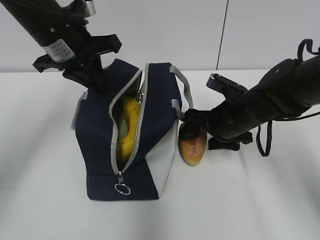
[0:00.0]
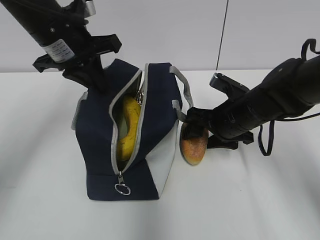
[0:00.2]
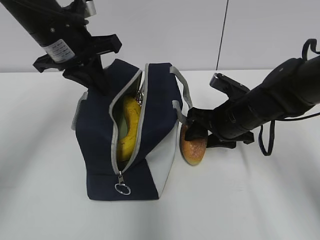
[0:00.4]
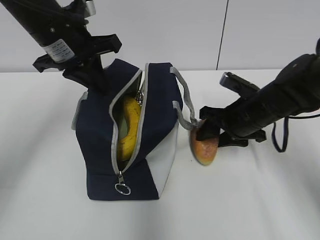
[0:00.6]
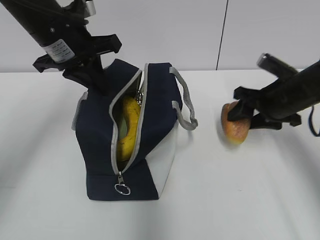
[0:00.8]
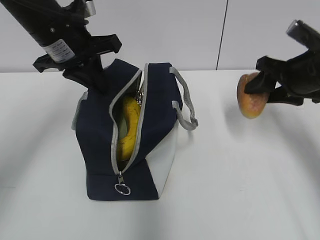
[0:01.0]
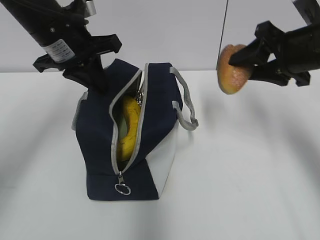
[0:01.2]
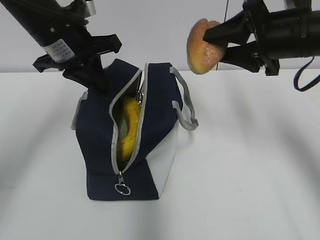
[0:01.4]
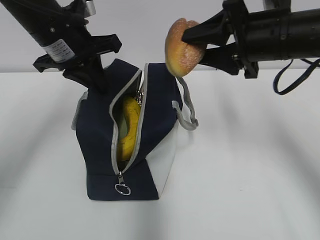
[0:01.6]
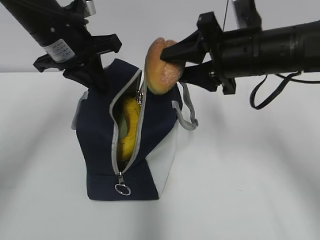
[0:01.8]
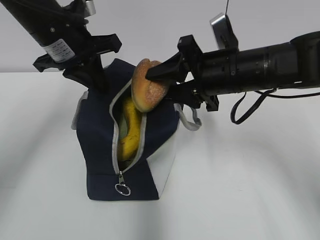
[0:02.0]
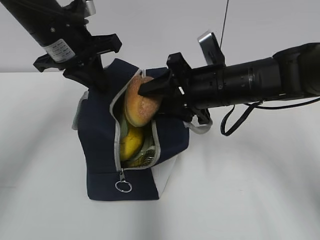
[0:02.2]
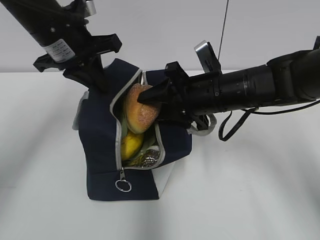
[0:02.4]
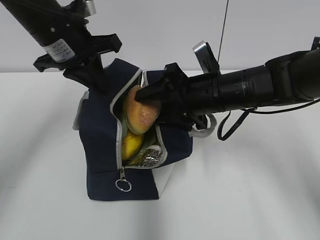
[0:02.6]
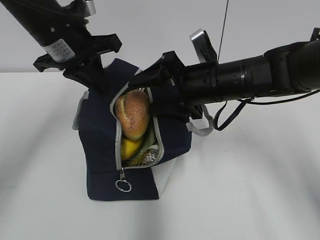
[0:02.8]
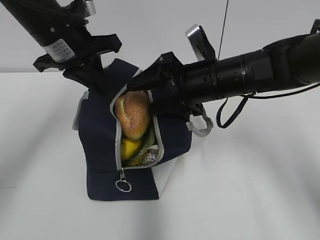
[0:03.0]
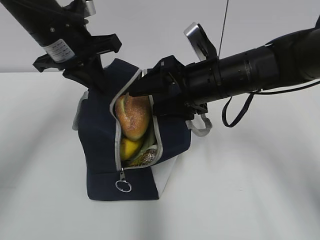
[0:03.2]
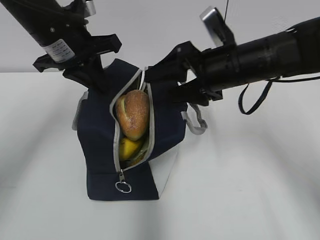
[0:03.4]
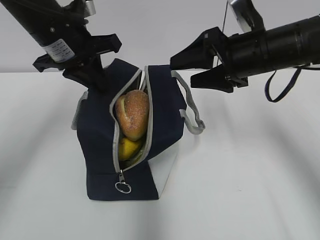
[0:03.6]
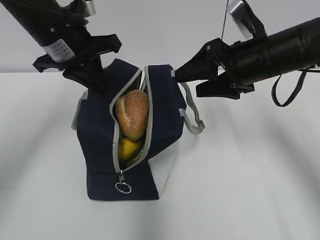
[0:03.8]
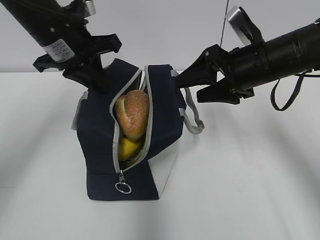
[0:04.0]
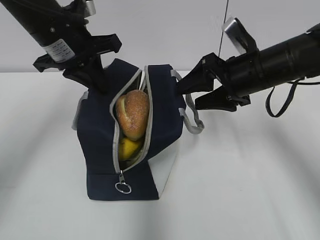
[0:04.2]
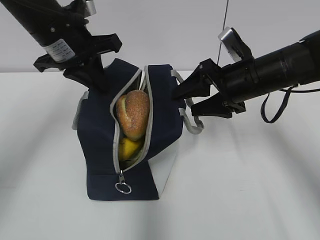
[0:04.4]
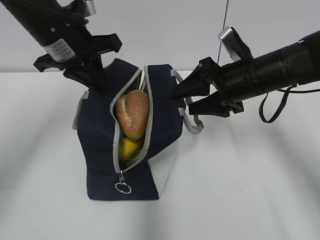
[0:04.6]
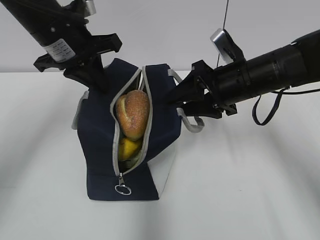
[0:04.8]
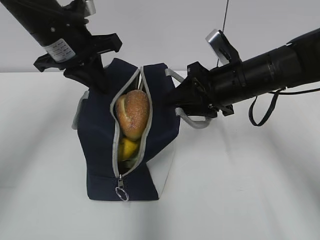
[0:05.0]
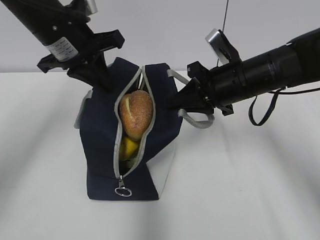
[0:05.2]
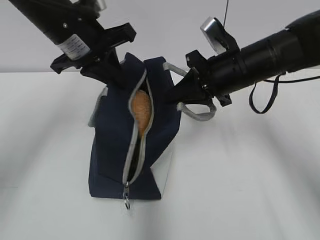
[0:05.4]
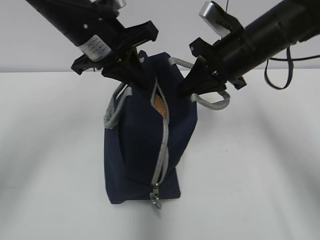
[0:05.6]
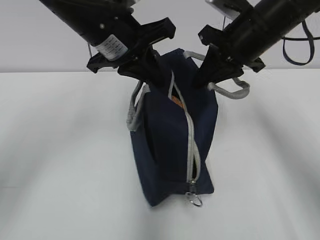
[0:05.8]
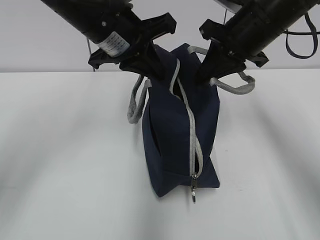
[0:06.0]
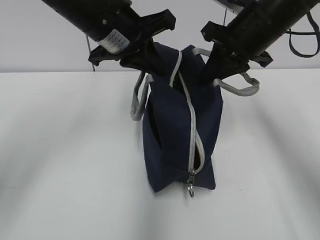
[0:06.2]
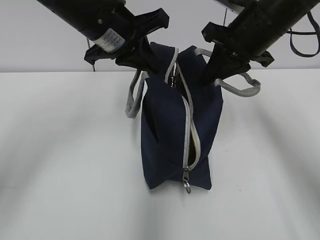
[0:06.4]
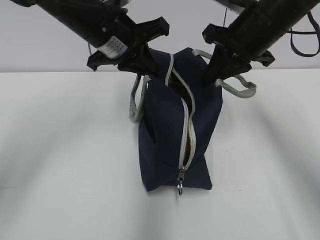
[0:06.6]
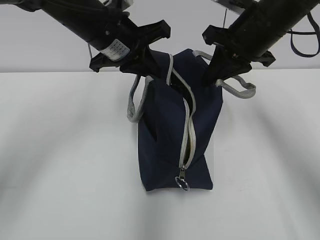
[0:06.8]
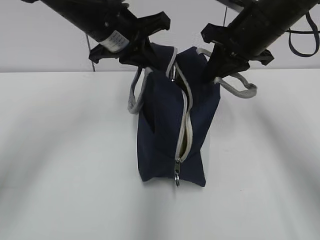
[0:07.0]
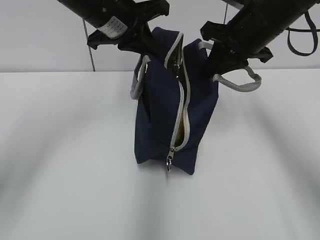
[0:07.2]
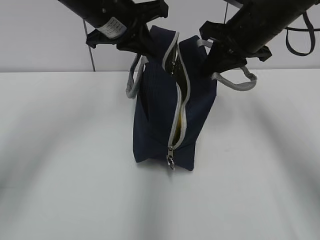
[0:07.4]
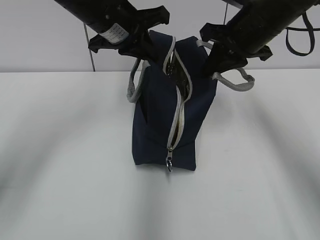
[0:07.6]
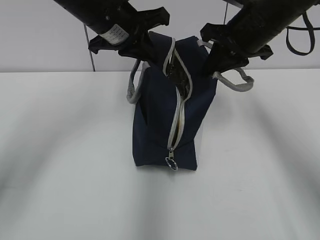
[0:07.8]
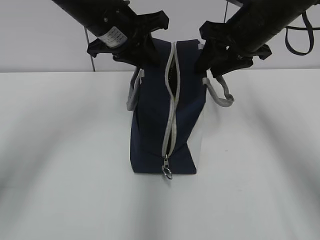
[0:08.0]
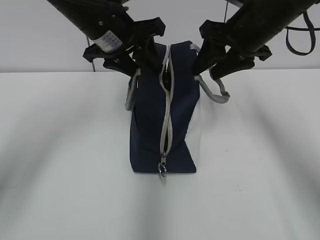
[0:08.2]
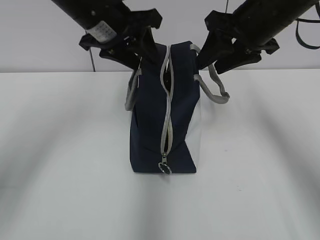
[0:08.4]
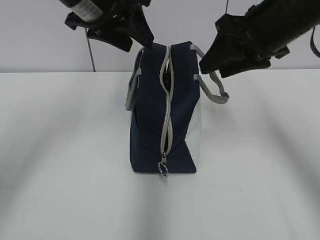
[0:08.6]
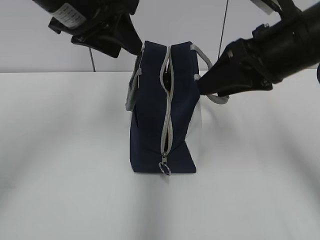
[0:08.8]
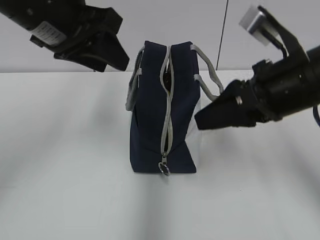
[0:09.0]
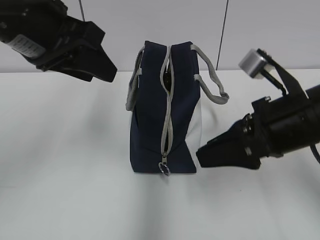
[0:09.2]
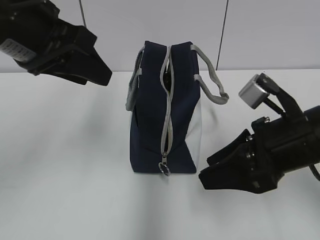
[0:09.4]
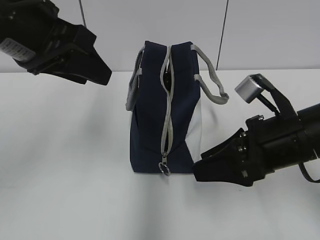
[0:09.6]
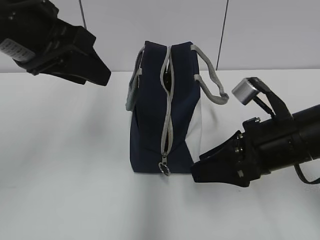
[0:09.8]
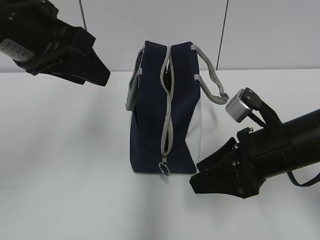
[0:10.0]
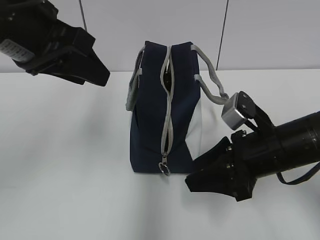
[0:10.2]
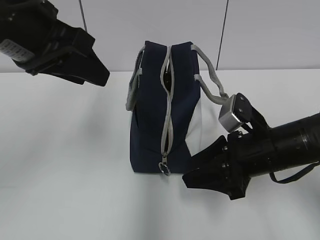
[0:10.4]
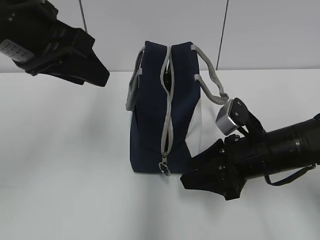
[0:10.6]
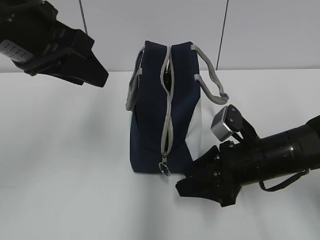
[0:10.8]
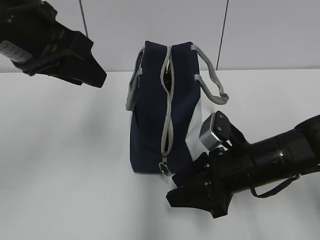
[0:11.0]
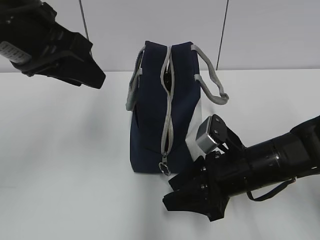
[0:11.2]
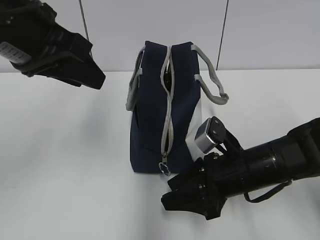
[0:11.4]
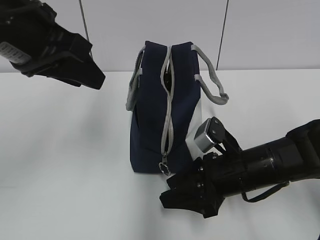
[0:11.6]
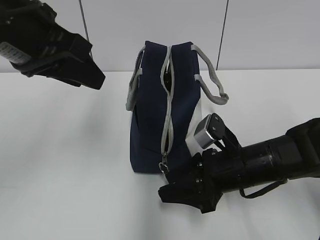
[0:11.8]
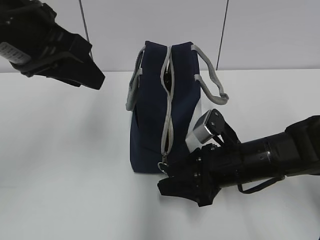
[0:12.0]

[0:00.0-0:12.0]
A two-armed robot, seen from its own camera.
0:00.0 to 0:01.6: The right gripper shifts approximately 15 cm upward, and closes up.
0:01.6 to 0:03.0: The right gripper shifts approximately 10 cm to the left and downward, and opens.
0:03.0 to 0:04.4: The right gripper goes approximately 5 cm to the right.
0:04.4 to 0:06.0: The right gripper travels upward by some 10 cm, and closes up; the left gripper is displaced to the right by roughly 5 cm.
0:06.0 to 0:07.6: The grippers stay close to where they were, moving slightly.
0:07.6 to 0:09.0: The right gripper goes some 15 cm backward, and opens its fingers. Meanwhile the left gripper moves backward and to the left, about 10 cm, and opens its fingers.
0:09.0 to 0:10.4: The right gripper travels downward by about 10 cm.
0:10.4 to 0:12.0: The right gripper shifts by approximately 5 cm.

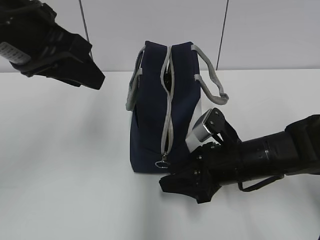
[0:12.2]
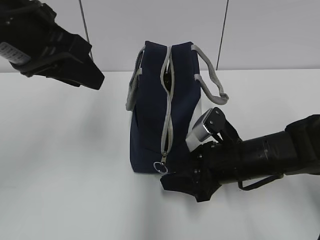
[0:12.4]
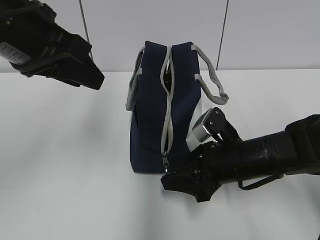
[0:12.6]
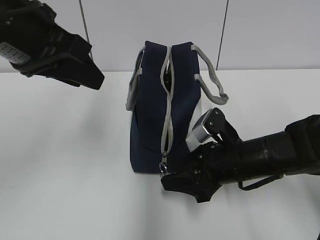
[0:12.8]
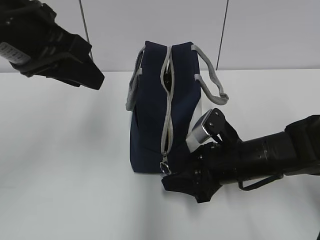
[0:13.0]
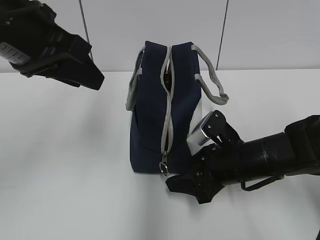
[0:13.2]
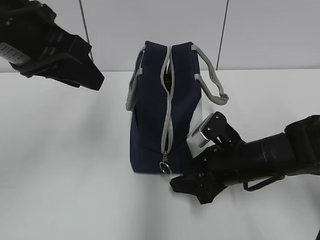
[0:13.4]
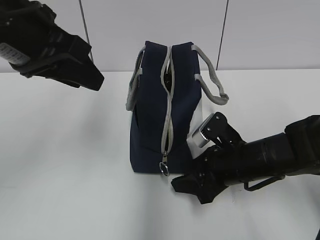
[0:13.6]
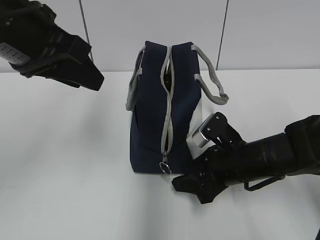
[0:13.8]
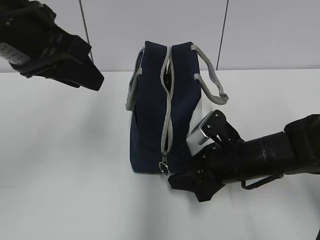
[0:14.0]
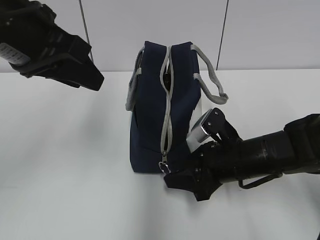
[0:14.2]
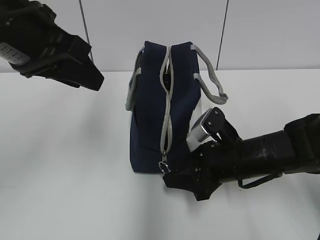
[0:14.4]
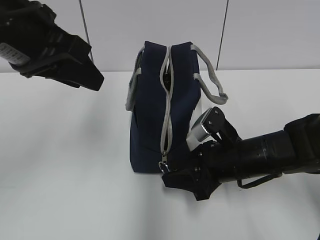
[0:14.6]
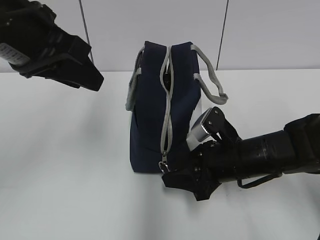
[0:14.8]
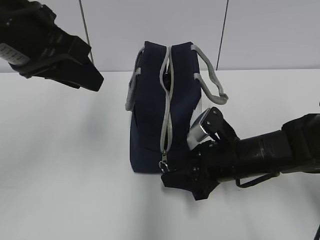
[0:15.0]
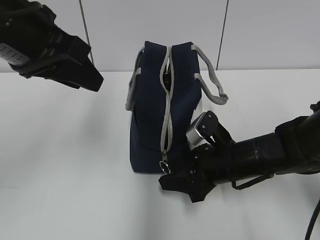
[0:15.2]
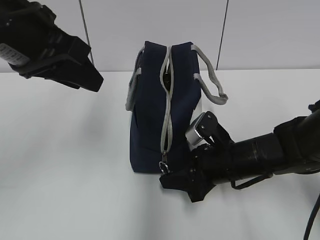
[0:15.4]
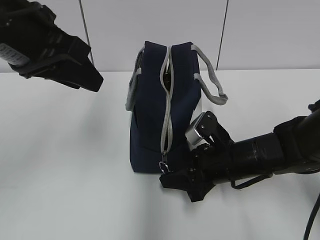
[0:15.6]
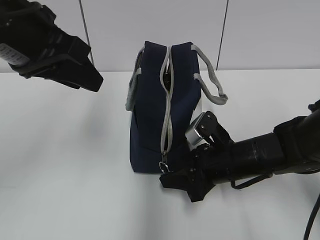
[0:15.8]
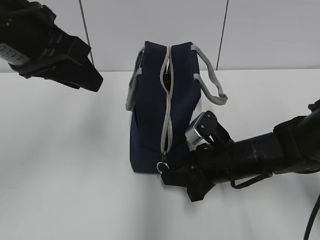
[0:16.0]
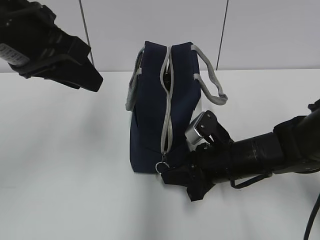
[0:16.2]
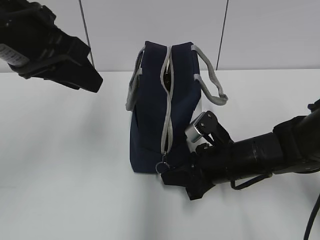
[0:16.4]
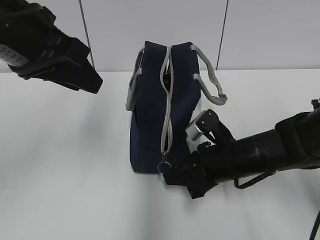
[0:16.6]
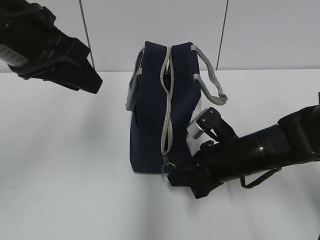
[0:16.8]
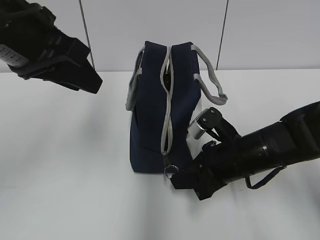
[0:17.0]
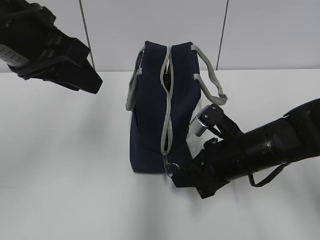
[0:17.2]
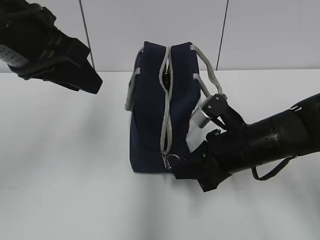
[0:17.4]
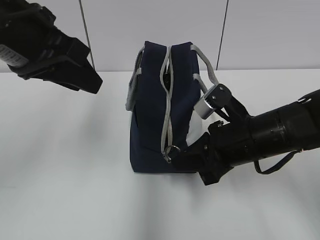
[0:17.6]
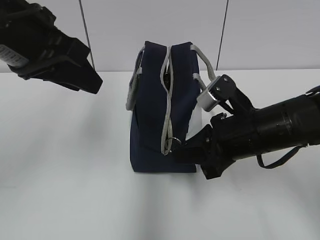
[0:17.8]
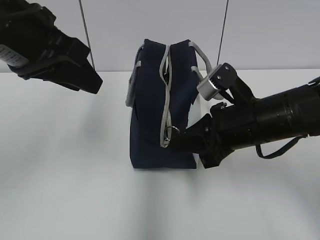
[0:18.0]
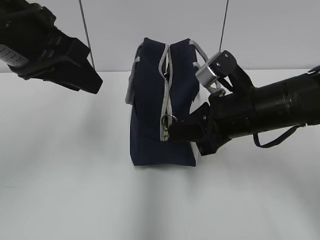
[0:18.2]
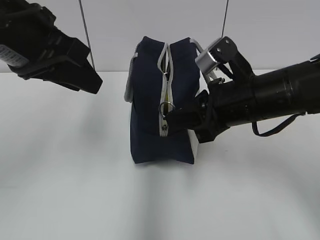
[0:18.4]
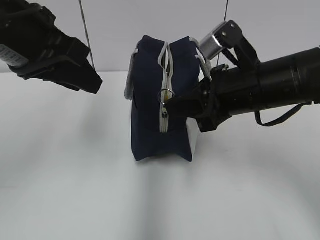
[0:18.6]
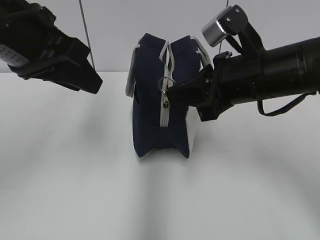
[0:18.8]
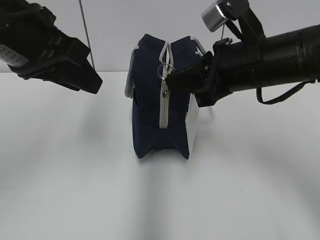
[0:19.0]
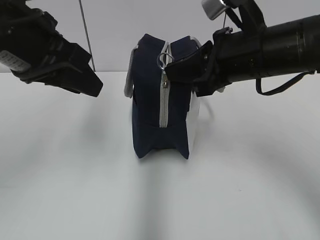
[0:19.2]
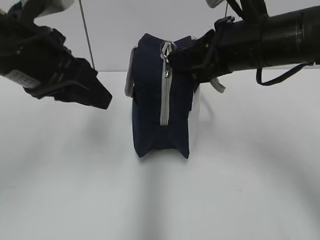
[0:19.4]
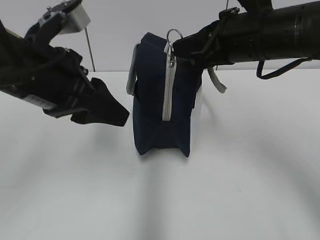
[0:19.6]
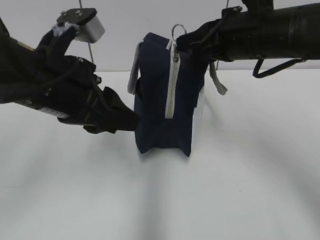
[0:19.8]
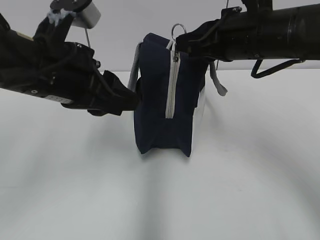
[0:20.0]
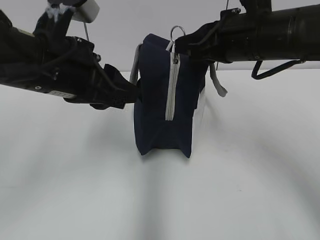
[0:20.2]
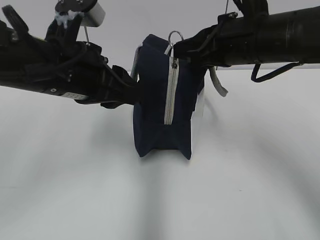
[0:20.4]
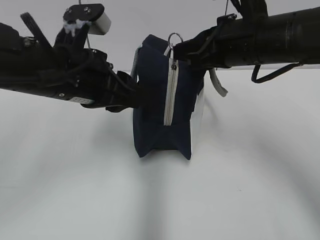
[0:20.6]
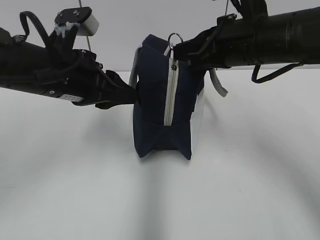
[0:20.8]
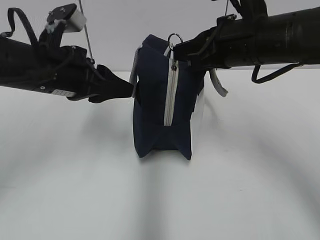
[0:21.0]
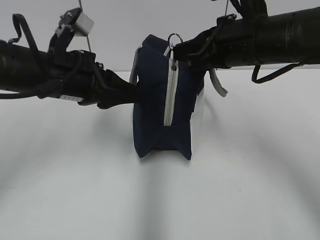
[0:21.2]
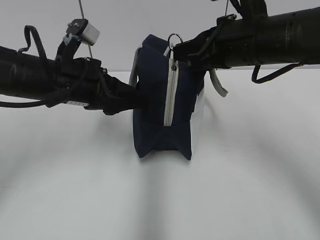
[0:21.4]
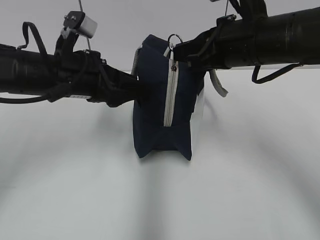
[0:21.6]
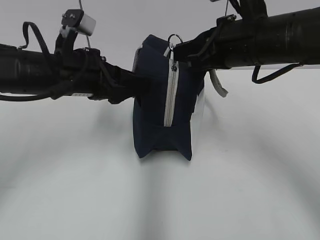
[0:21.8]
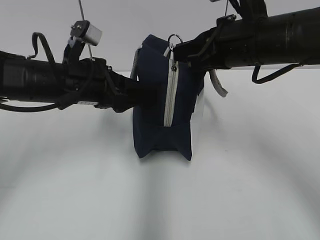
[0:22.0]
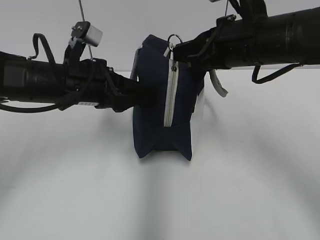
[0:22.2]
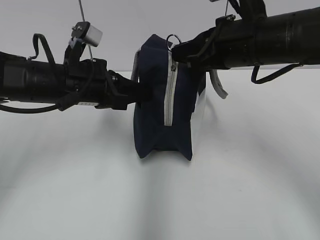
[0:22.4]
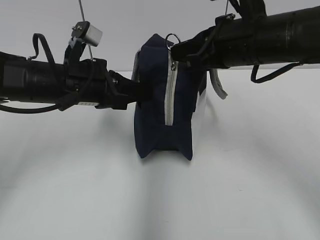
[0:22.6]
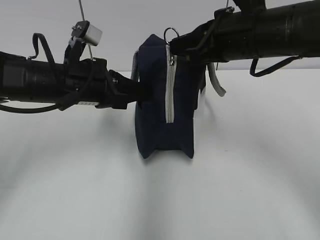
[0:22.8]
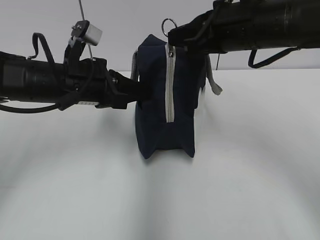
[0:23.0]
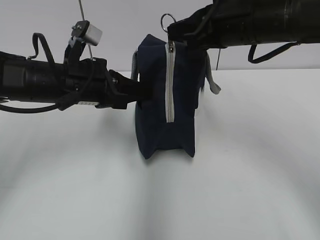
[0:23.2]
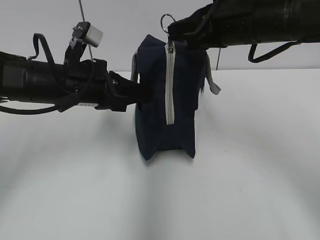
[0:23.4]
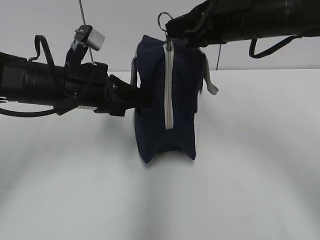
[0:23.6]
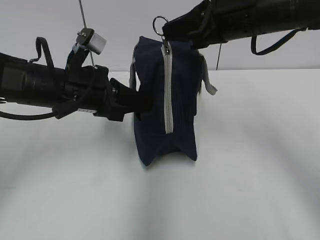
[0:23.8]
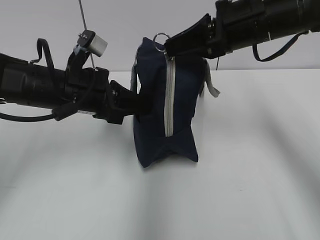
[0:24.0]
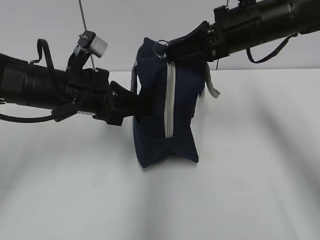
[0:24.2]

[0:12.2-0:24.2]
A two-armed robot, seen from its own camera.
0:12.2 to 0:15.2: There are only small adjustments of the grippers.
0:15.2 to 0:16.6: The right gripper closes its fingers.
0:16.6 to 0:18.2: The right gripper shifts roughly 10 cm upward.
0:18.2 to 0:19.8: The right gripper moves upward, approximately 10 cm; the left gripper is displaced downward by some 5 cm.
0:19.8 to 0:21.2: The left gripper is displaced forward by approximately 5 cm.
0:21.2 to 0:22.6: The left gripper closes up.
0:22.6 to 0:24.2: The right gripper is displaced forward by about 5 cm.
